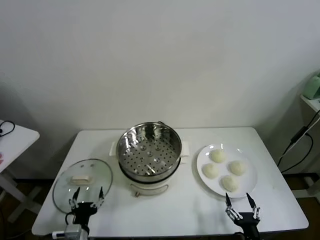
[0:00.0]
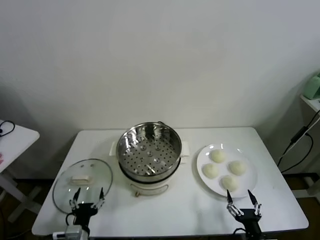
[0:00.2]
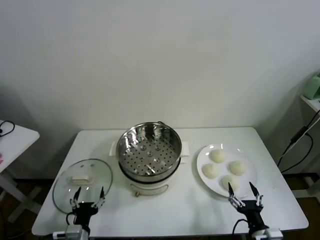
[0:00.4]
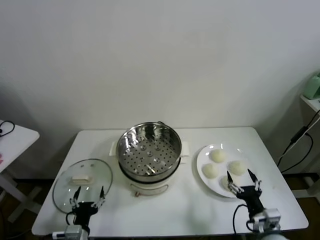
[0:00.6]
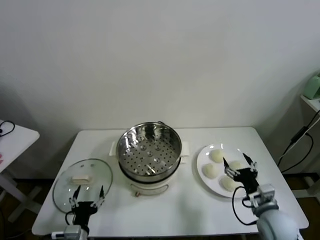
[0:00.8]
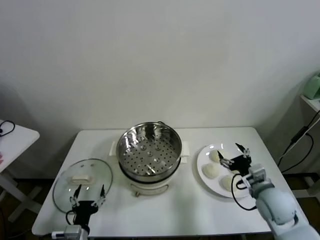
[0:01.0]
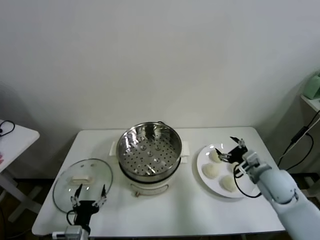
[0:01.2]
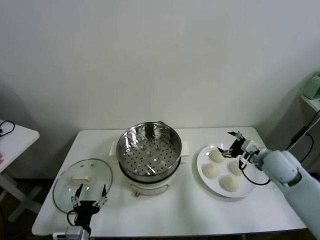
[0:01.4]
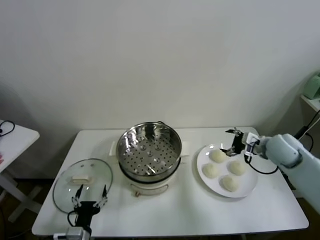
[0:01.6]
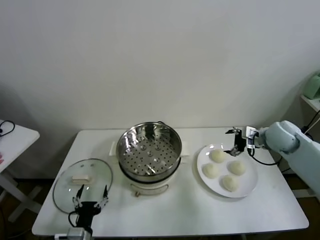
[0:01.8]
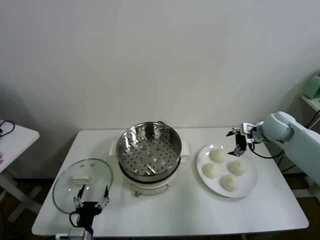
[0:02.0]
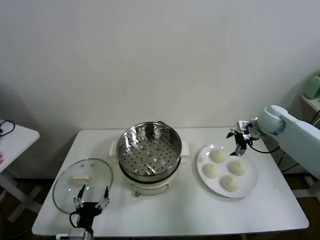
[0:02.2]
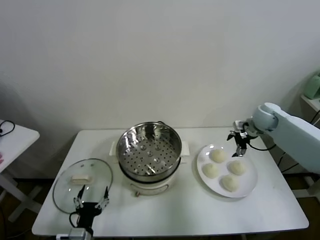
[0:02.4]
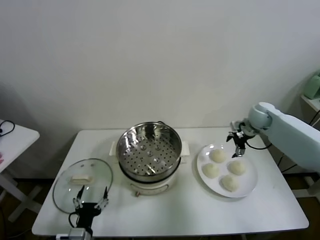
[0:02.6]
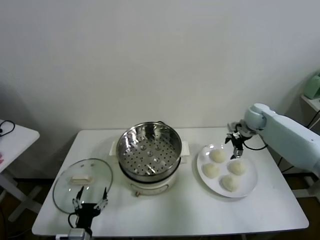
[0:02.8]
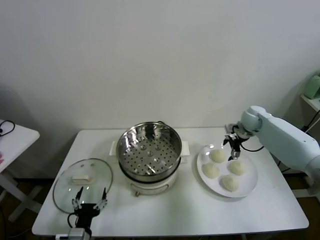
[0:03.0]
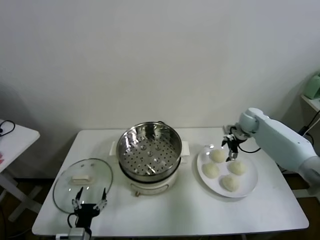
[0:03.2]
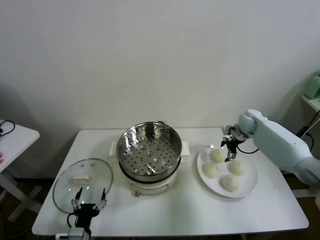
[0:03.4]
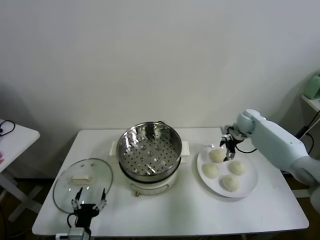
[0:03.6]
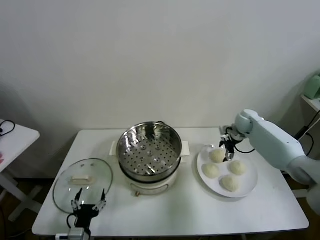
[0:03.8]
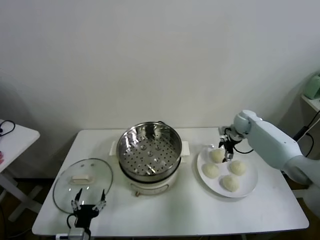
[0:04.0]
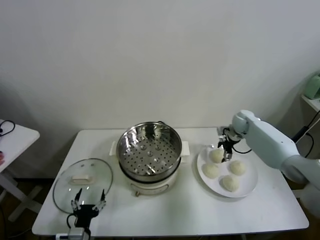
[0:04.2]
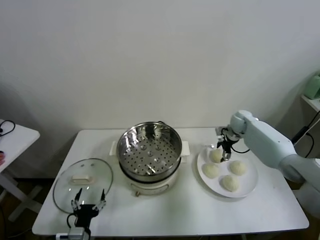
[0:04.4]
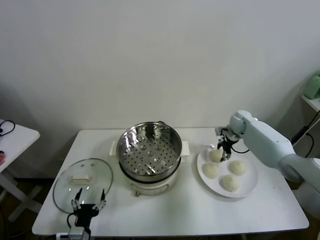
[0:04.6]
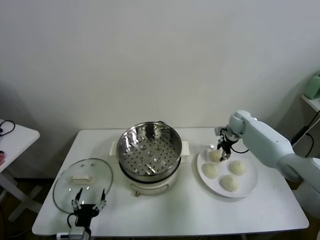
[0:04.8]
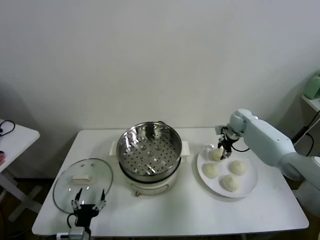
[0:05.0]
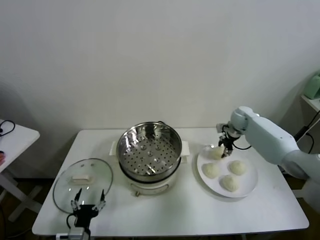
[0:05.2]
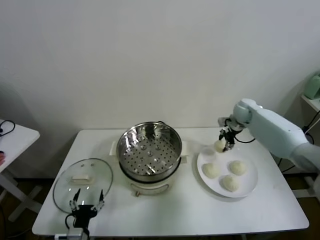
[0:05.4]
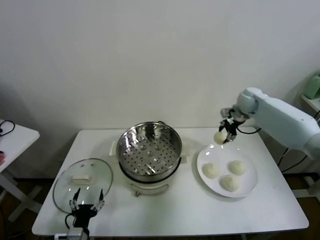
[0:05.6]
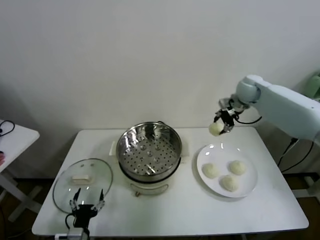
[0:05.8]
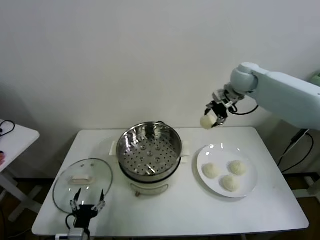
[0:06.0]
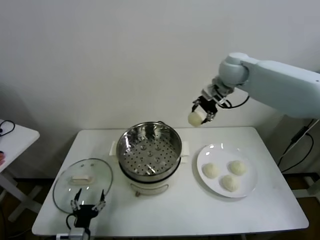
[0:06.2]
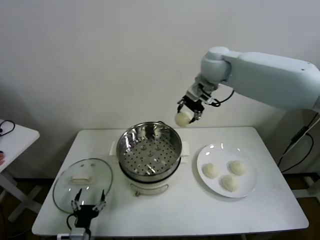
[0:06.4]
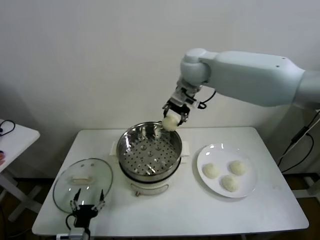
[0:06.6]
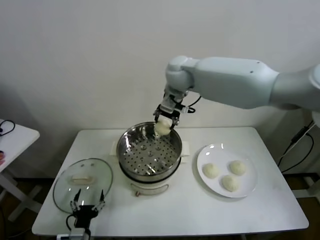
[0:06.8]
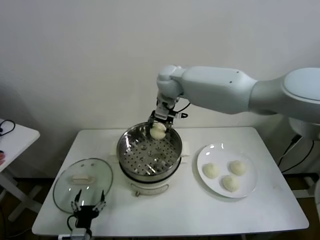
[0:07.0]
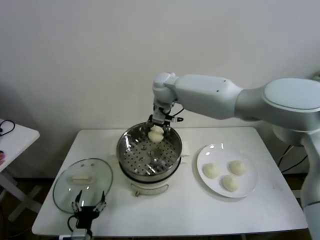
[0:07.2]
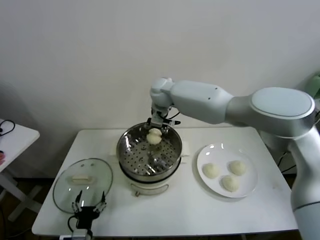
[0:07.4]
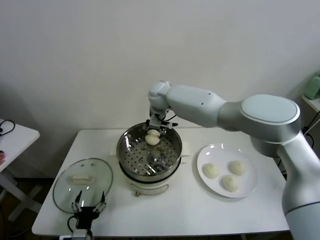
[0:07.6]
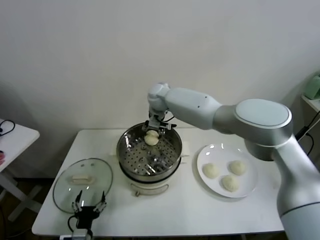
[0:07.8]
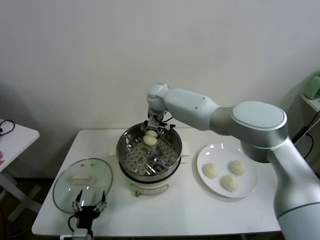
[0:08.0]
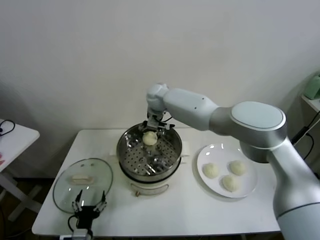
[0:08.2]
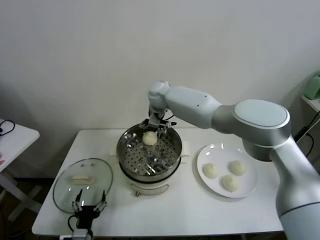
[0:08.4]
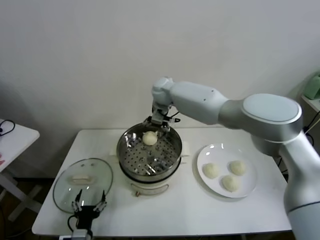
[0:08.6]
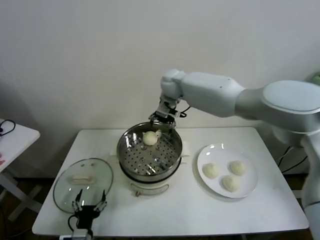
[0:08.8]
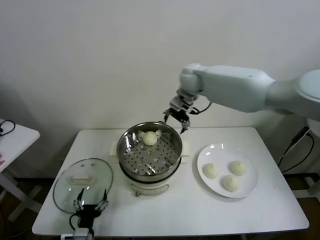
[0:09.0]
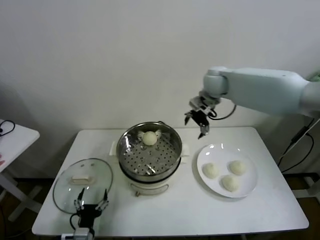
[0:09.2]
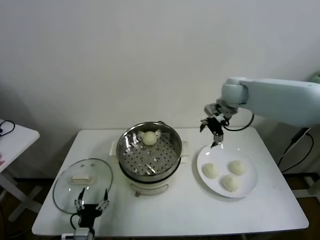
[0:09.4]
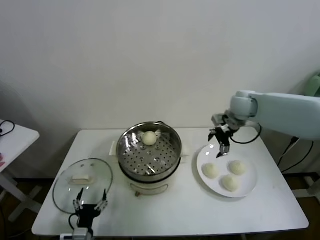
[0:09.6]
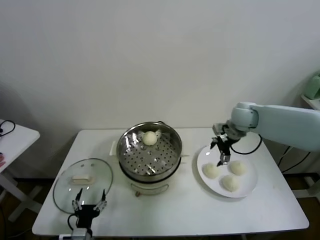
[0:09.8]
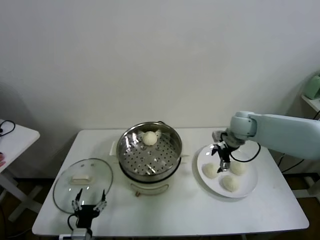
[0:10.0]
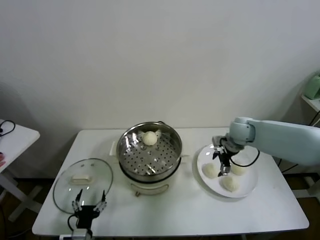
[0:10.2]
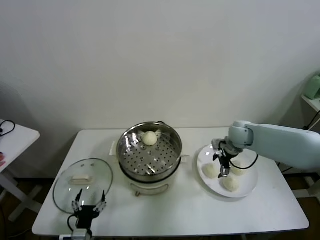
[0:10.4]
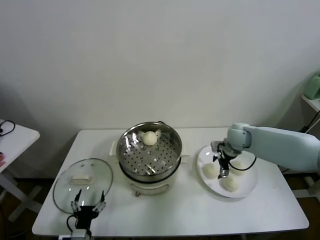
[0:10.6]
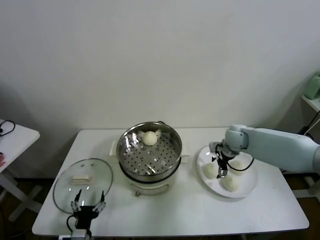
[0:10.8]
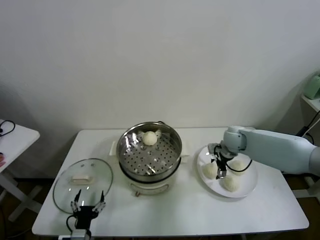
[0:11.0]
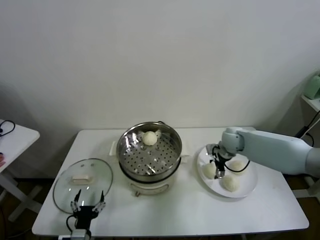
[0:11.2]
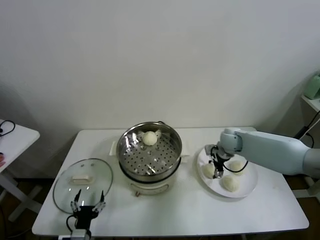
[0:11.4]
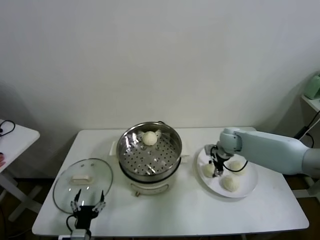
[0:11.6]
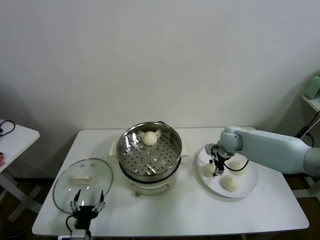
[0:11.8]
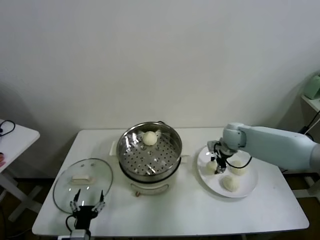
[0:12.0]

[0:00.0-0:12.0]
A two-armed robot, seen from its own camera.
Task of the whole recording: take steamed baozi put them in steamer.
Step, 0:00.0 to 0:05.0: Grasp the baozi in the plate with right gripper.
Step, 0:05.2 to 0:08.4: Place the baozi on the steamer with right gripper.
Step, 0:08.6 to 0:11.8: Grasp the baozi in the plate with right gripper.
0:01.6 to 0:03.0: The right gripper goes approximately 15 cm forward.
0:03.0 to 0:04.4: The right gripper shifts by roughly 5 cm.
0:04.4 to 0:06.0: The right gripper heads upward, covering about 25 cm, and closes its fingers.
0:06.0 to 0:07.6: The right gripper goes roughly 25 cm to the left and downward.
0:07.6 to 0:09.0: The right gripper shifts approximately 15 cm to the right and upward, and opens.
0:09.0 to 0:10.4: The right gripper shifts some 25 cm downward, to the right and backward.
0:10.4 to 0:12.0: The right gripper closes up.

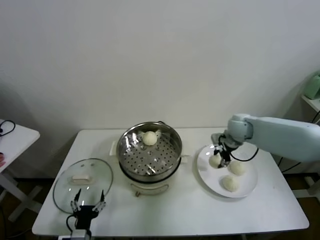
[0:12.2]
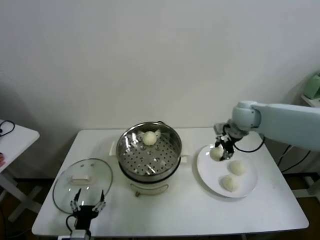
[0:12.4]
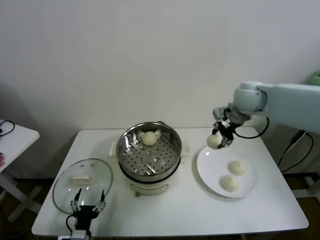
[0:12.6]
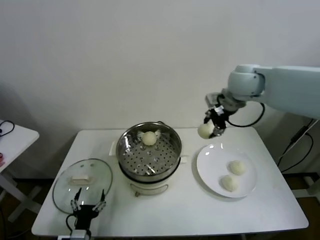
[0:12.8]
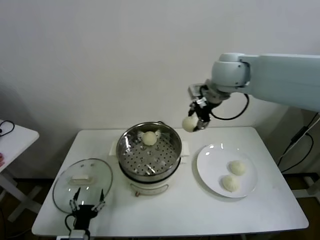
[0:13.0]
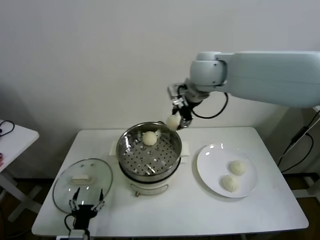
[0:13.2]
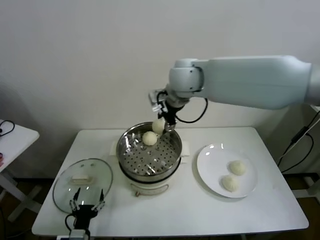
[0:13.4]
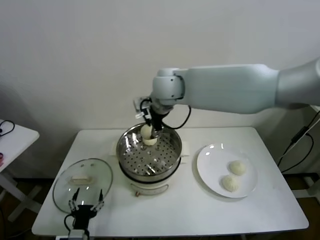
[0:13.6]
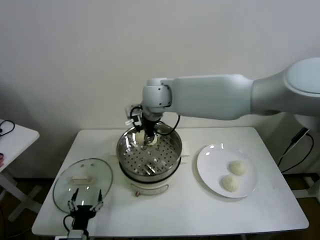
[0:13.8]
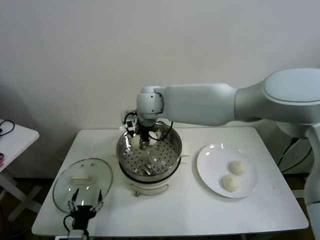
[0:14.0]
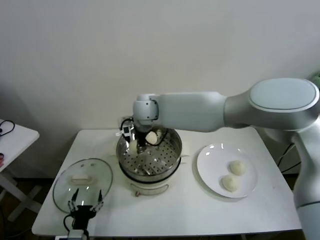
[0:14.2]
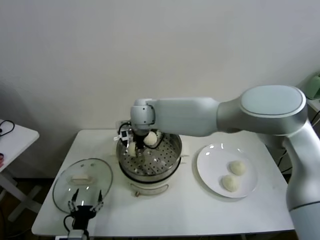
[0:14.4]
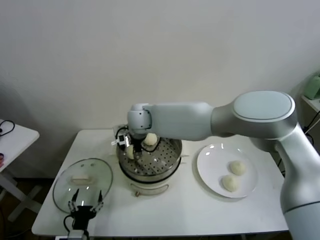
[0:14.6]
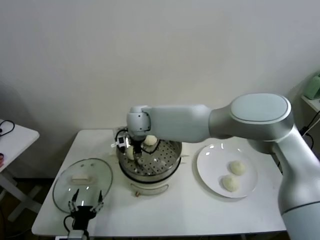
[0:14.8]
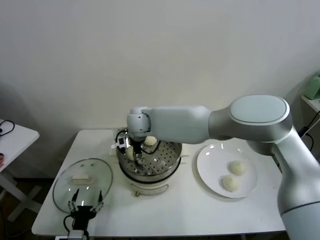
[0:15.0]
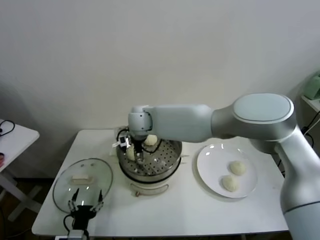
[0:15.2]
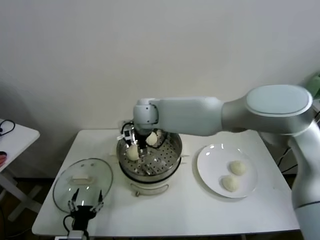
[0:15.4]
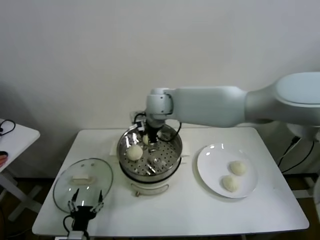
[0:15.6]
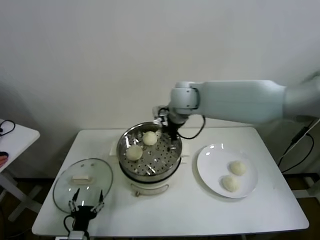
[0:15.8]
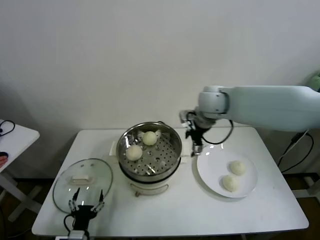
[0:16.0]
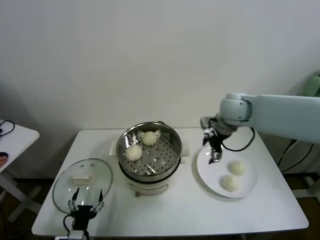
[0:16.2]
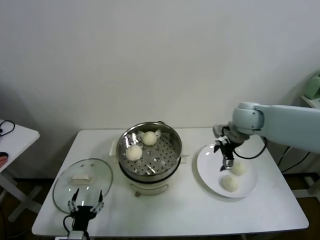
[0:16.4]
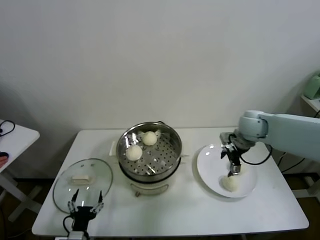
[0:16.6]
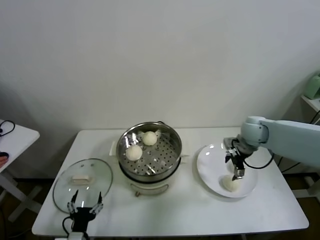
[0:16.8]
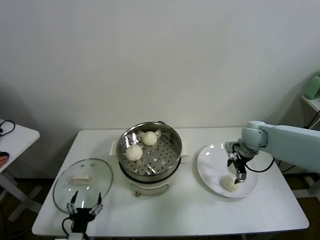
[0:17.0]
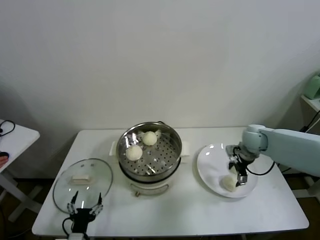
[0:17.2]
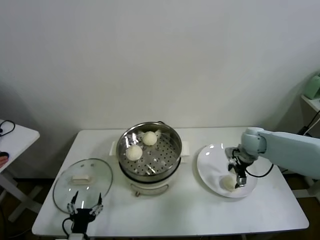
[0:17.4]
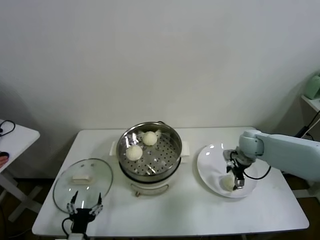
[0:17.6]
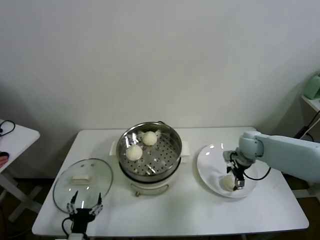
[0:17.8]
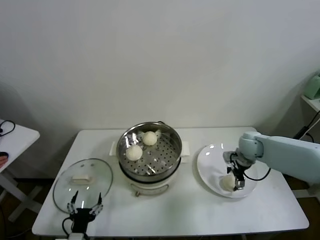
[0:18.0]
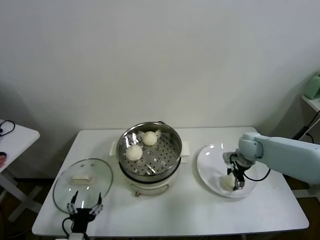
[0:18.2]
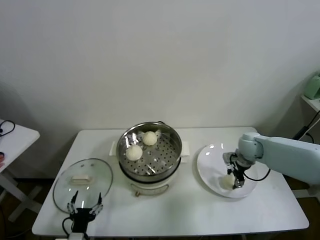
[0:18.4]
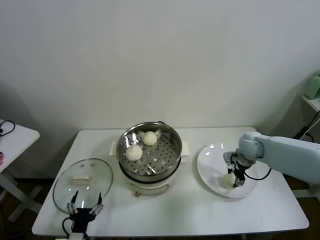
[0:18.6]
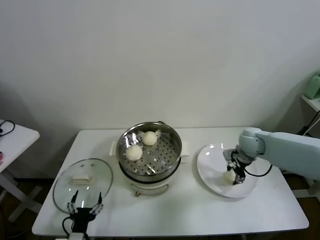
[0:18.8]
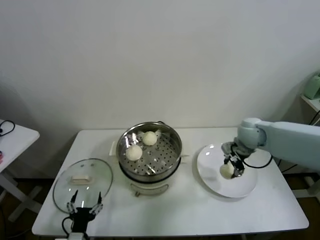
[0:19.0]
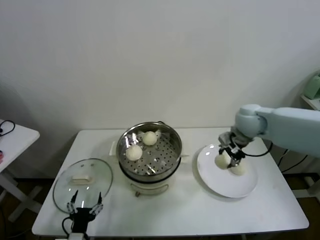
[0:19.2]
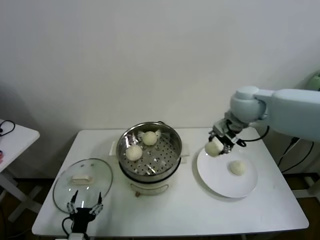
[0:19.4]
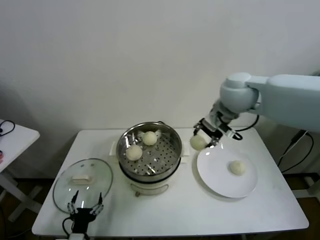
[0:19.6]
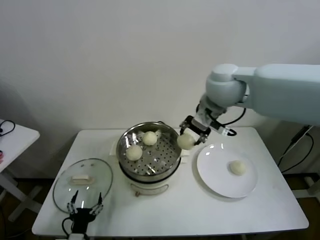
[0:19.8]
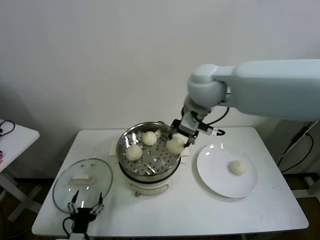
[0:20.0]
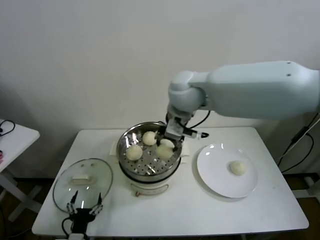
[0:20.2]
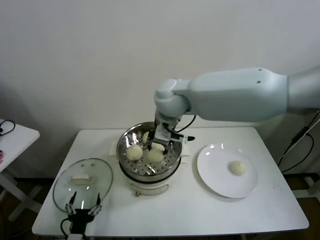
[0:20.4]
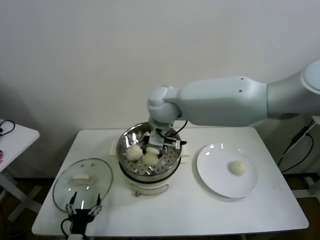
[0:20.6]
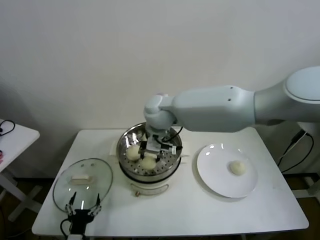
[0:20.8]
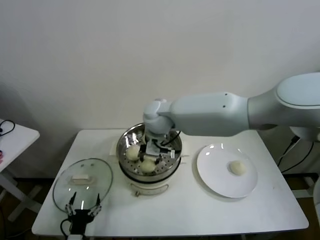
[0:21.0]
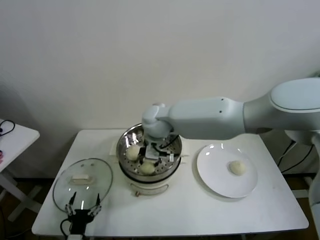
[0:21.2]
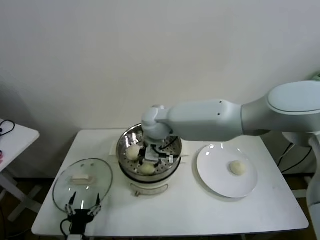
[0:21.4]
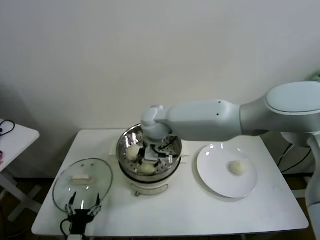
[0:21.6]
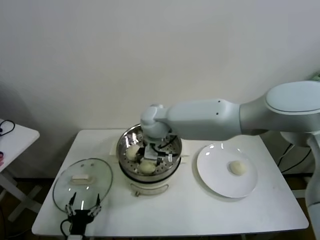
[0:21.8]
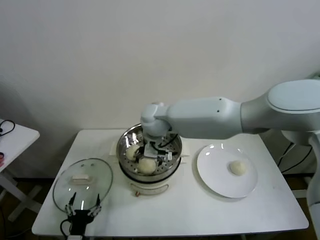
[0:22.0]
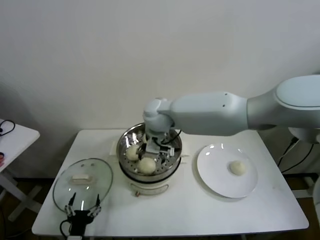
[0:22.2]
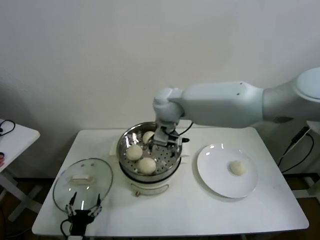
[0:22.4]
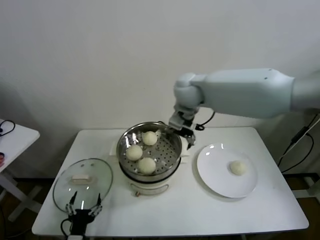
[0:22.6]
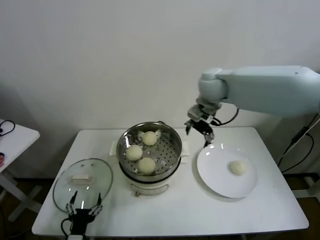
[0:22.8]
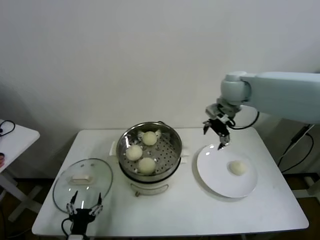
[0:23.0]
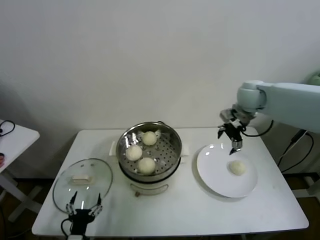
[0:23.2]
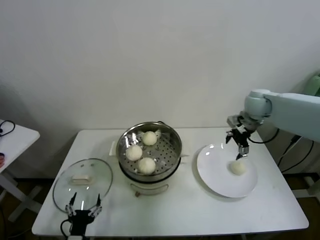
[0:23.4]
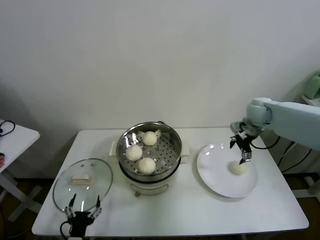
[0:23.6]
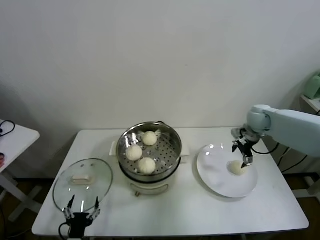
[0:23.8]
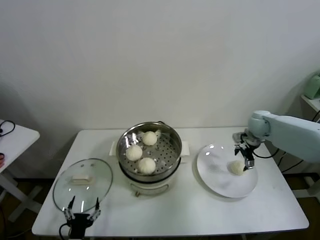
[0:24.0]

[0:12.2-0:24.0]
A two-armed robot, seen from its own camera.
Task of the whole recording: take steamed baozi put them in steamer.
Step, 0:12.2 to 0:15.0: Place the baozi on the steamer with right gripper.
Step, 0:15.4 to 0:18.4: Grasp the baozi in the plate with right gripper.
Step, 0:18.6 to 0:21.8: Place the baozi on the steamer with right gripper.
0:12.2 to 0:13.6: The right gripper shifts about 30 cm to the left and upward.
0:13.6 to 0:15.2: The right gripper goes roughly 15 cm downward and to the left, and opens its fingers.
0:15.2 to 0:16.6: The right gripper is displaced to the right by roughly 35 cm.
0:16.6 to 0:18.2: The right gripper moves downward, about 10 cm, and closes up.
0:18.2 to 0:19.6: The right gripper shifts approximately 30 cm upward and to the left, and closes up.
0:19.6 to 0:21.0: The right gripper heads to the left and downward, covering about 25 cm.
0:21.0 to 0:22.6: The right gripper is displaced to the right and upward by about 10 cm, and opens up.
0:22.6 to 0:24.0: The right gripper goes about 35 cm to the right and downward.
